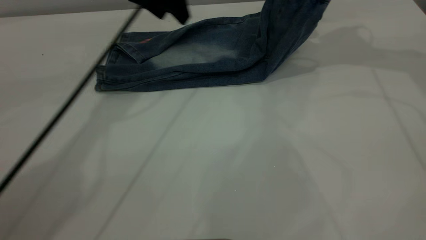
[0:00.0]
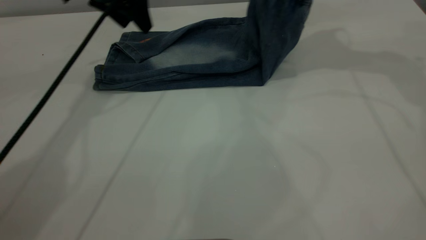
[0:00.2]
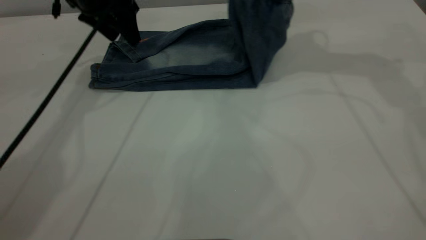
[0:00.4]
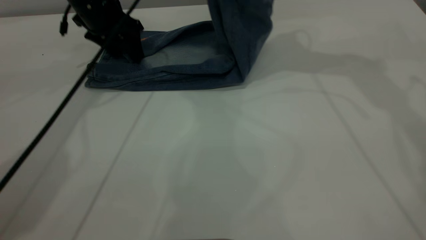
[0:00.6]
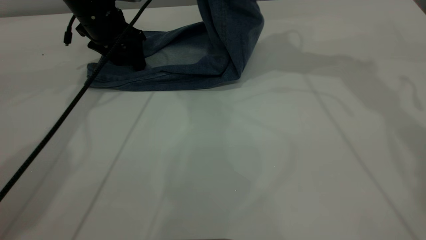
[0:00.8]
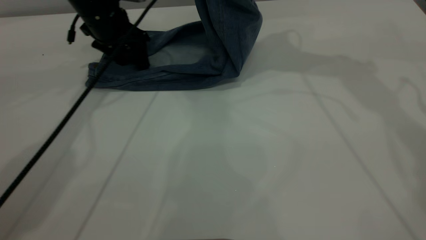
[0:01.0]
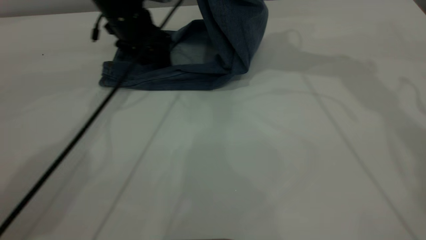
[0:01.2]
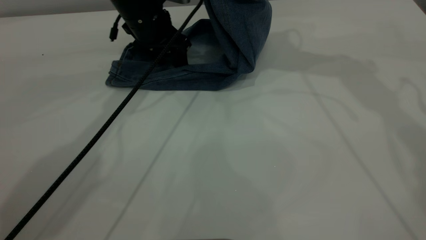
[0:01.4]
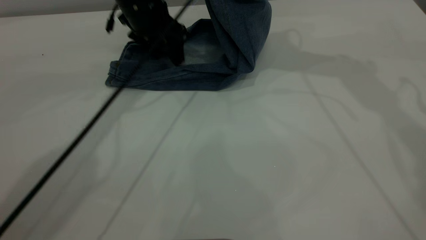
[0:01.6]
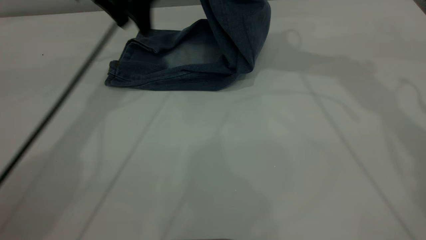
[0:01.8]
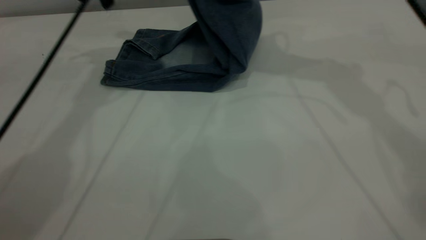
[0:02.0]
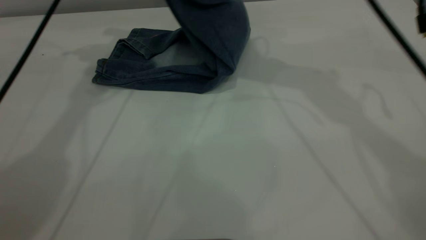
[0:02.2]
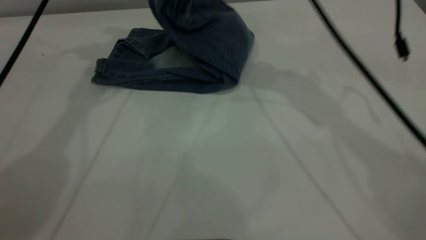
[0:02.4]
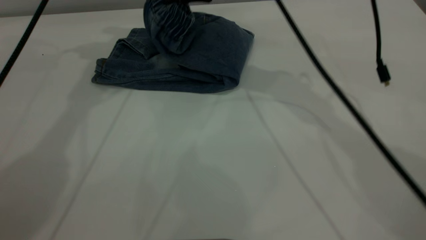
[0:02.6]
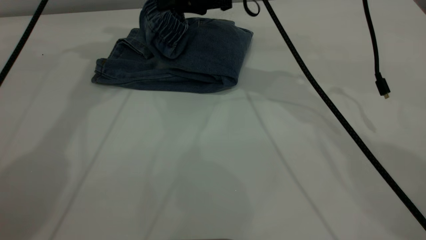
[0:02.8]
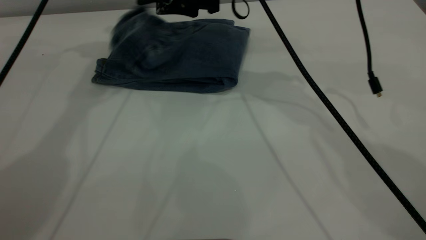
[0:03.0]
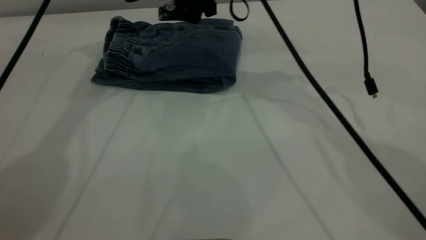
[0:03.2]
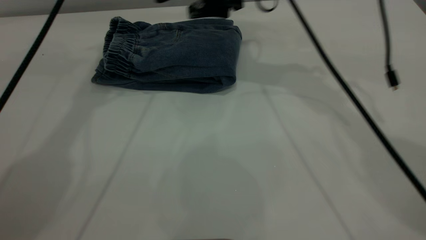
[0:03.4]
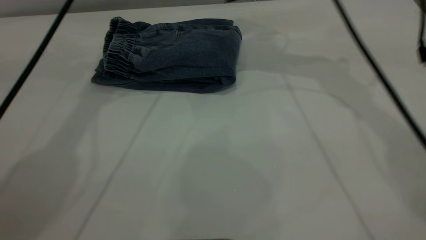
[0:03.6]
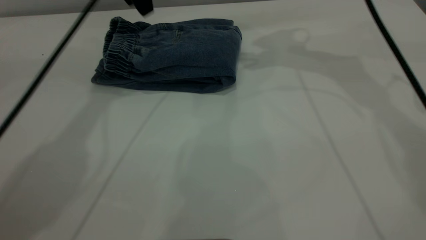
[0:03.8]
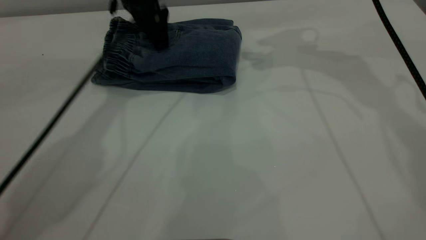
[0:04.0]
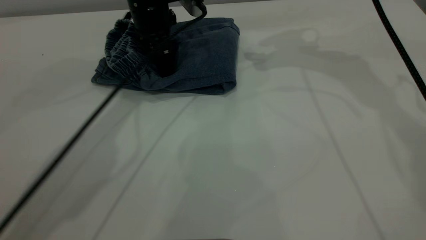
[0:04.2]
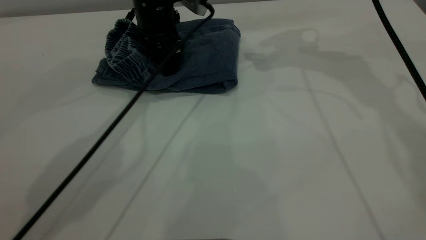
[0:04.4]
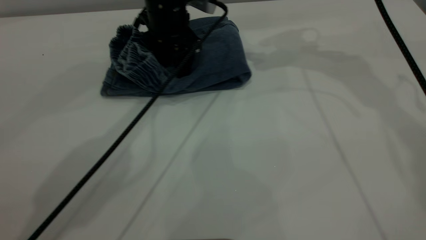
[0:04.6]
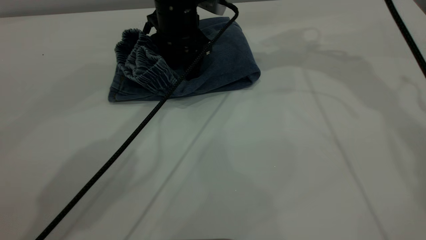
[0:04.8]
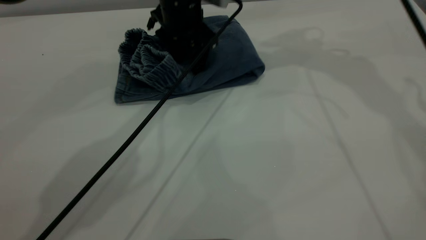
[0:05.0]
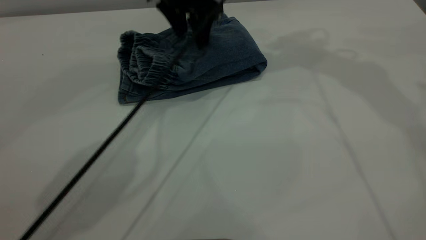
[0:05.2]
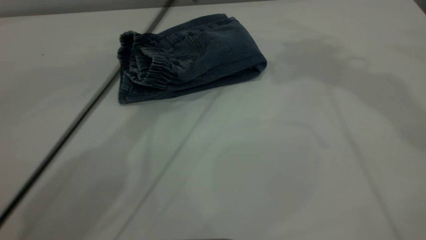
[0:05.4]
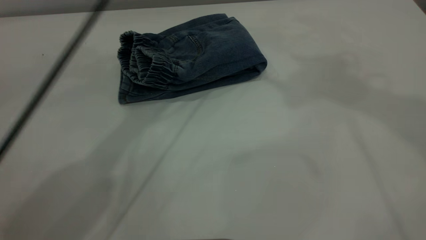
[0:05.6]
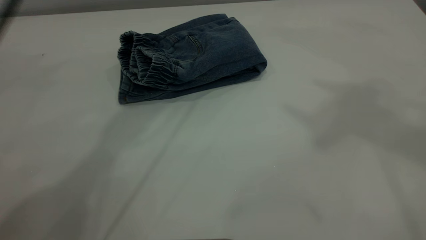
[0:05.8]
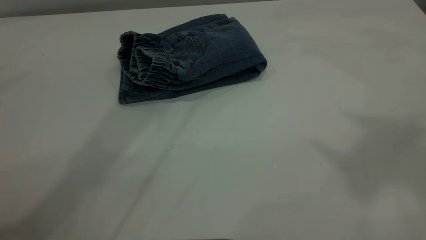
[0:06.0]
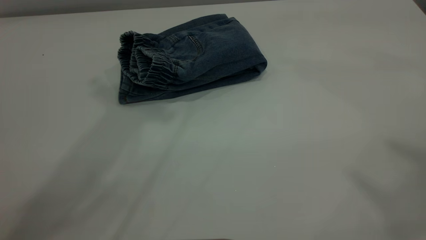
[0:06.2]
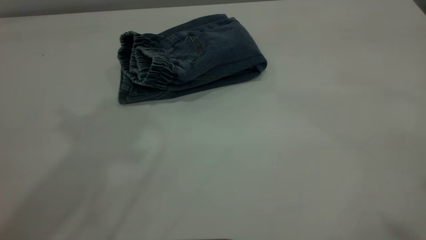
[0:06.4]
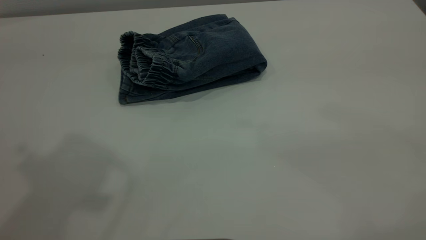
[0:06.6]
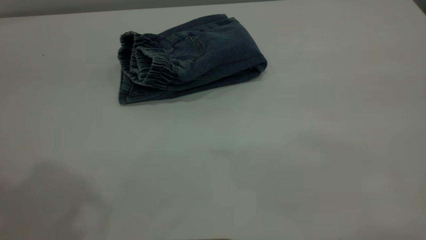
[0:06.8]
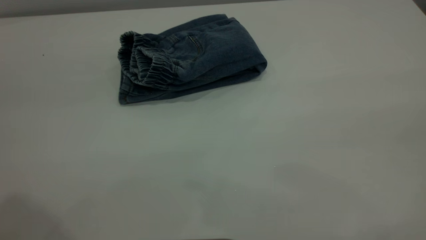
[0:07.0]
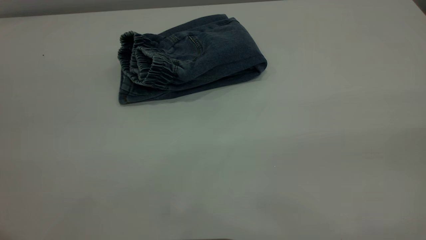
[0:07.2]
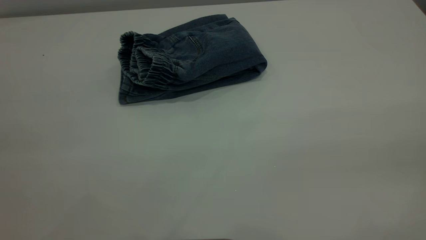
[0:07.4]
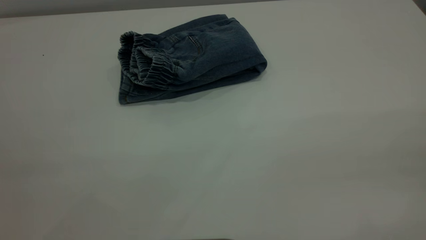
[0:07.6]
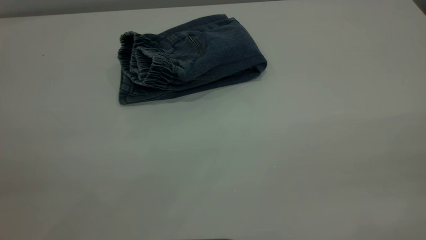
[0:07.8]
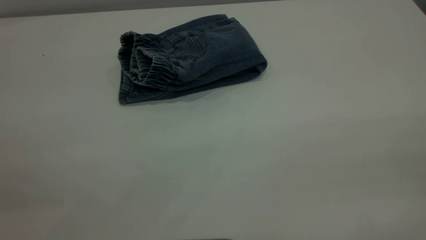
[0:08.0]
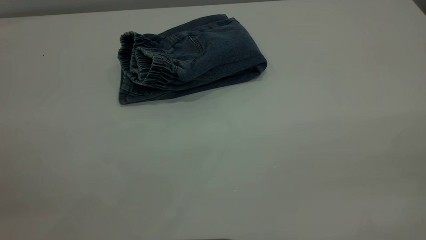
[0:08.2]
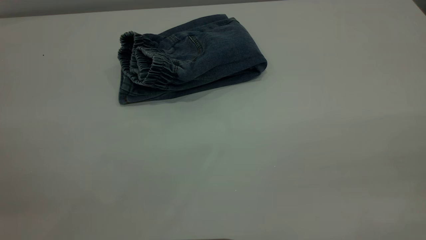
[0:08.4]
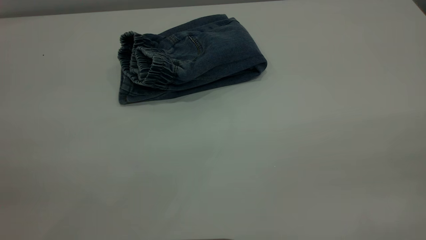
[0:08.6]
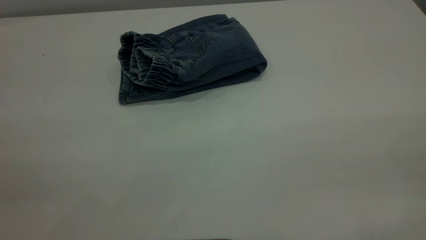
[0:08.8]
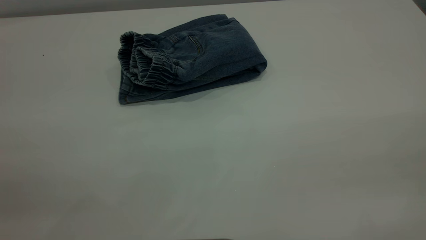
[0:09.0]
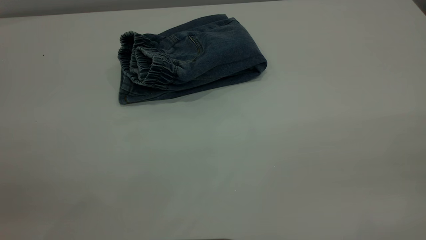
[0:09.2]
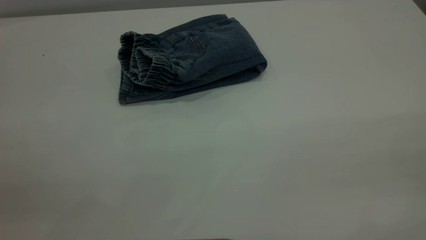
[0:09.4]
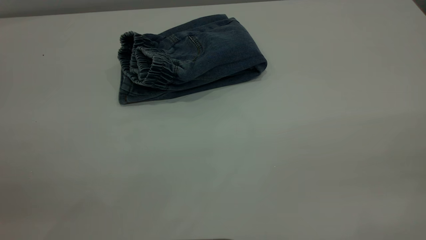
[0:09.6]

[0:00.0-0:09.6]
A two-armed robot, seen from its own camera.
Step, 0:00.0 to 0:03.6: Fold your pants from right to left.
0:00.0 to 0:01.6: The right gripper shifts some 10 cm to the left.
0:01.6 to 0:03.2: The right gripper moves downward and to the left, roughly 15 cm, and opens. The left gripper travels upward and to the left by roughly 15 cm.
0:03.2 to 0:04.8: The left gripper is displaced downward and to the right by roughly 20 cm, while the right gripper goes approximately 15 cm to the right and upward.
0:04.8 to 0:06.4: The left gripper goes some 40 cm upward and backward, while the right gripper travels backward and upward by roughly 50 cm.

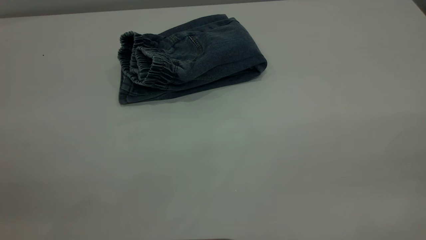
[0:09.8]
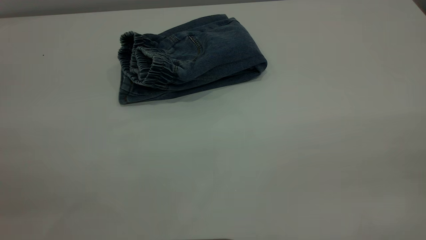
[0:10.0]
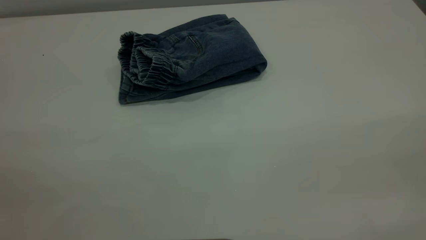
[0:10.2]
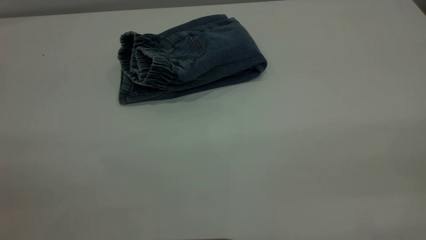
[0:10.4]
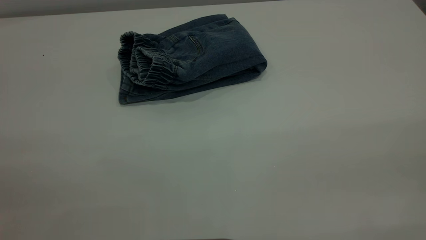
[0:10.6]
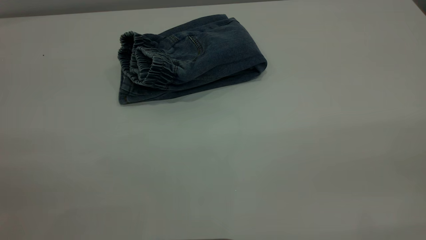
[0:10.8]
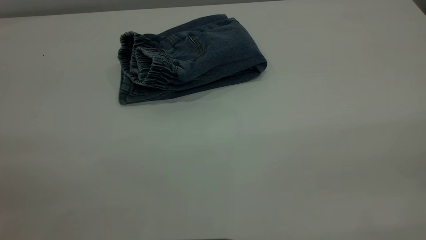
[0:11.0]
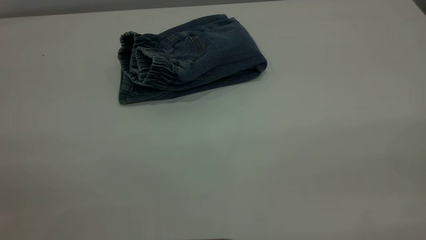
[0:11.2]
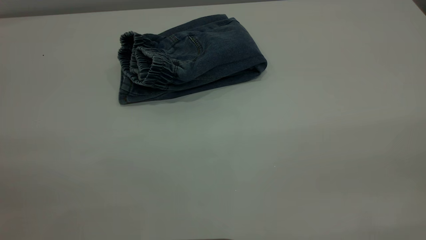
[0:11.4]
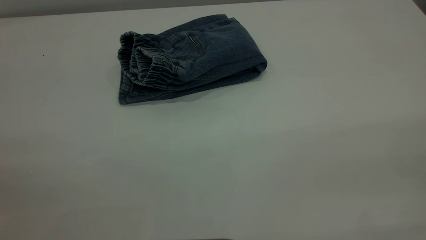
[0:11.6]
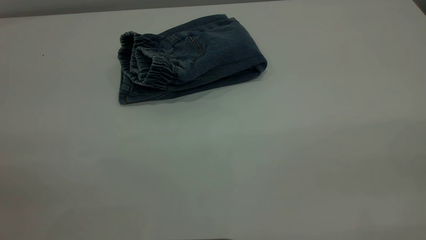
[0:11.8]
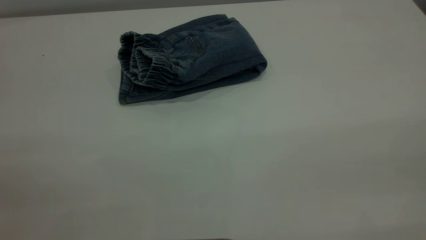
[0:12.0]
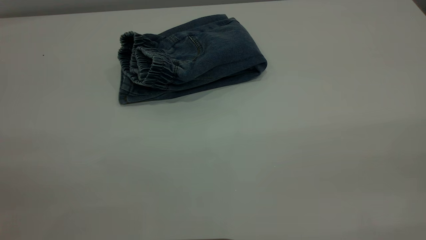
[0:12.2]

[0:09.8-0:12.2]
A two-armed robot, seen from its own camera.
0:11.0 to 0:12.2: The two grippers keep their place.
